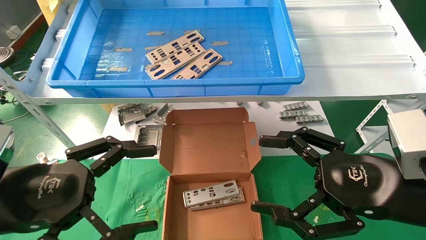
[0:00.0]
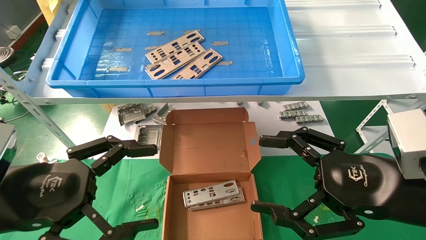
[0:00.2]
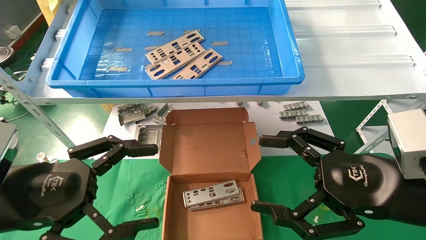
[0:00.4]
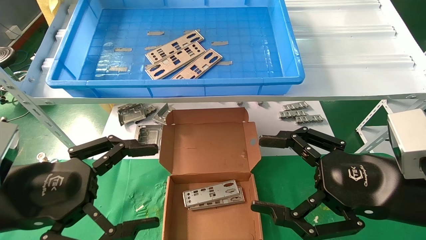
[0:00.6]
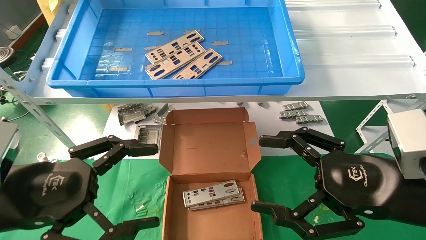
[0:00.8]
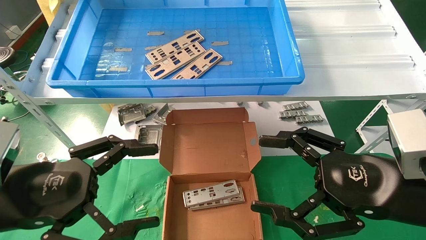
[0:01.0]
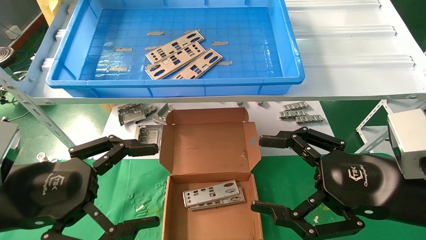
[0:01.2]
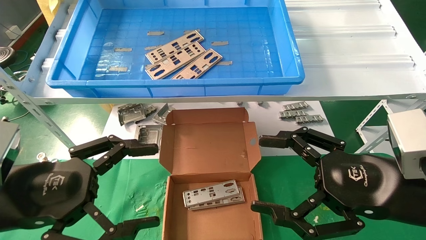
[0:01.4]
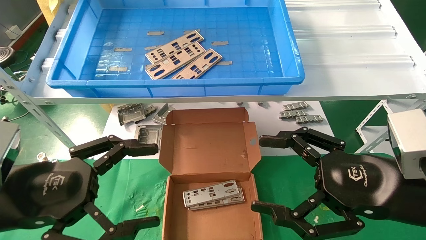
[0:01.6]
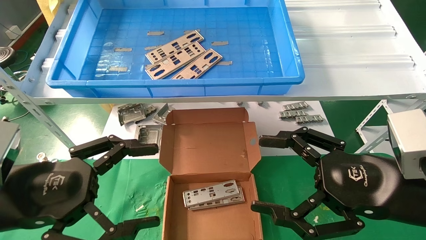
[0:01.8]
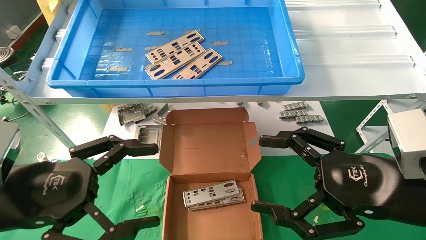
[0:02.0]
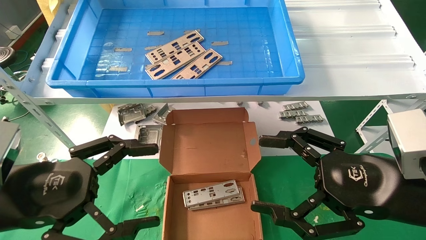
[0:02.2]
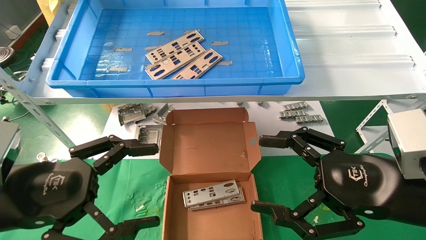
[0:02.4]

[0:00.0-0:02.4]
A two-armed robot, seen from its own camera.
Task of the whole recording: pick up the parts on the tray and put them in the cardboard box.
0:00.0 to 0:02.4: Both grippers stay put.
